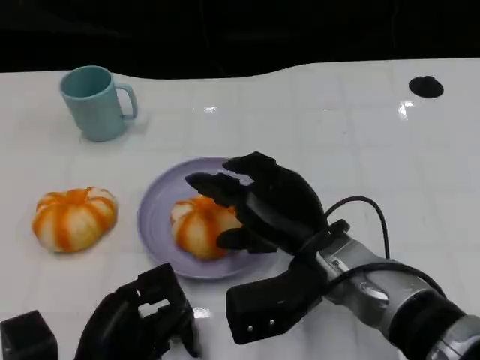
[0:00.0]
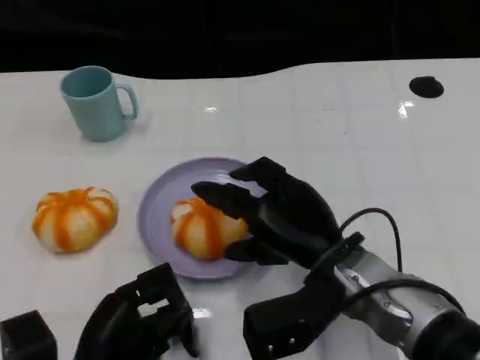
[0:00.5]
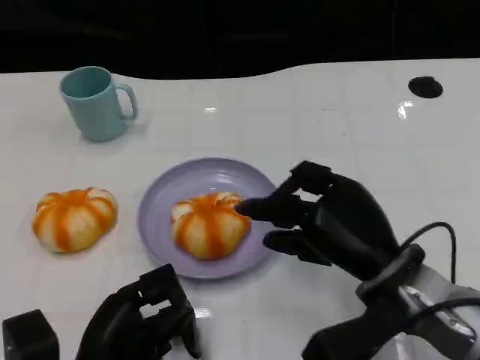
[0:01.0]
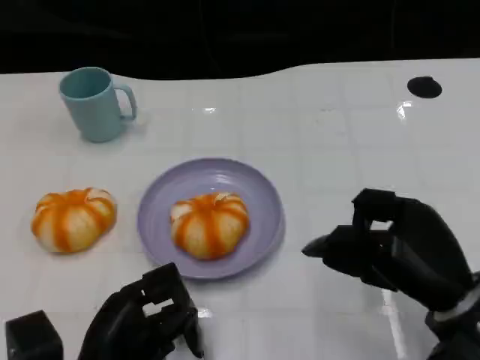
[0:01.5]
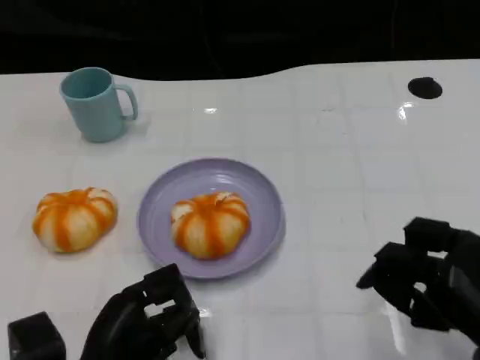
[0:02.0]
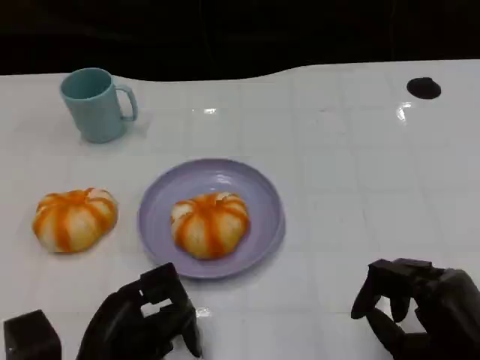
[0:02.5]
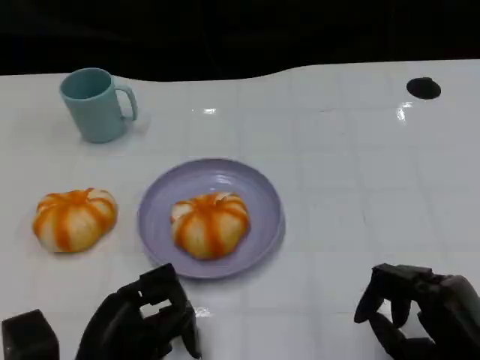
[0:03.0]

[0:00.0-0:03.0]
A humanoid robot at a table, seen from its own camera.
Task of the whole recording: Grasp the bread from the table and place it into the plate.
0:00.0 to 0:01.5: The right hand moves to the right, some 15 cm.
0:01.5 to 0:03.0: The right hand goes about 5 cm backward.

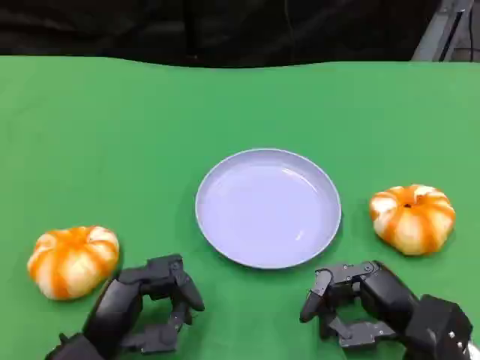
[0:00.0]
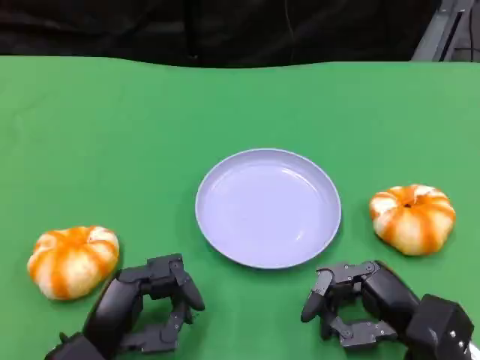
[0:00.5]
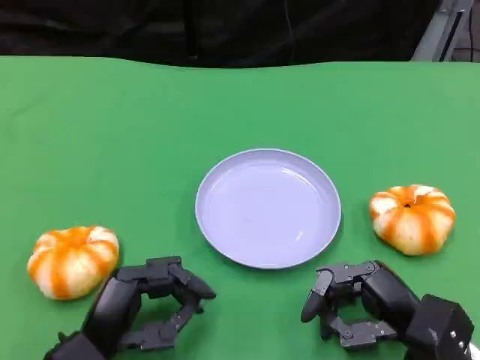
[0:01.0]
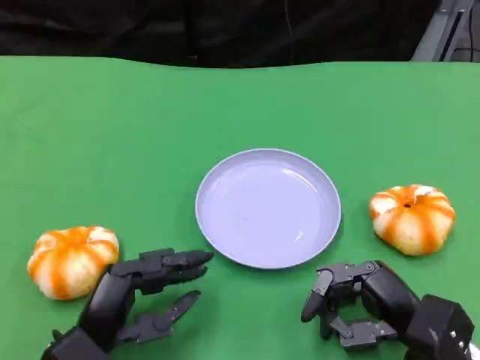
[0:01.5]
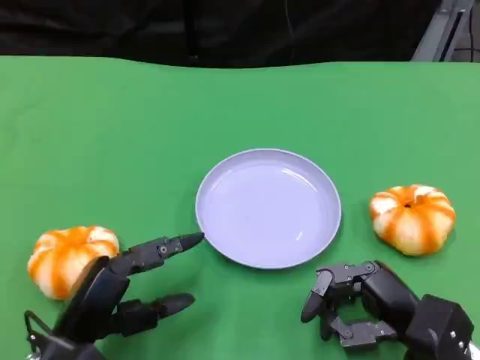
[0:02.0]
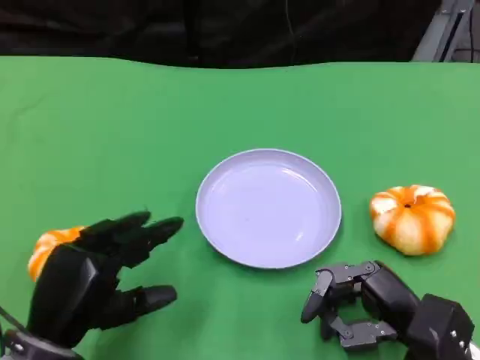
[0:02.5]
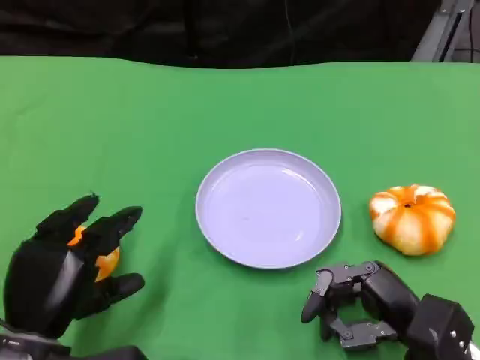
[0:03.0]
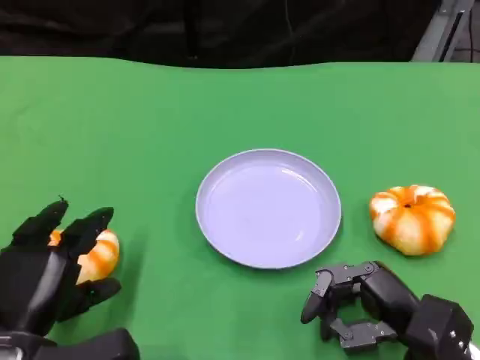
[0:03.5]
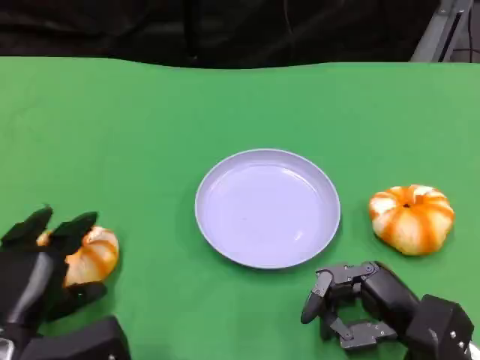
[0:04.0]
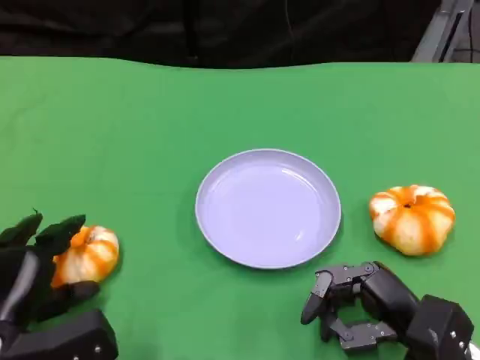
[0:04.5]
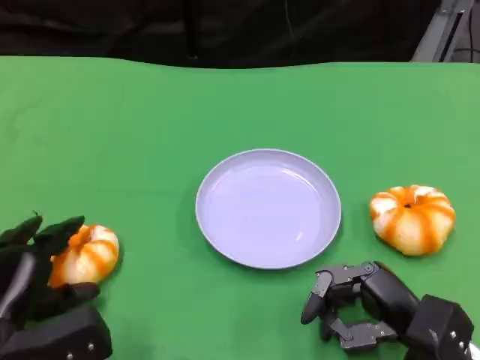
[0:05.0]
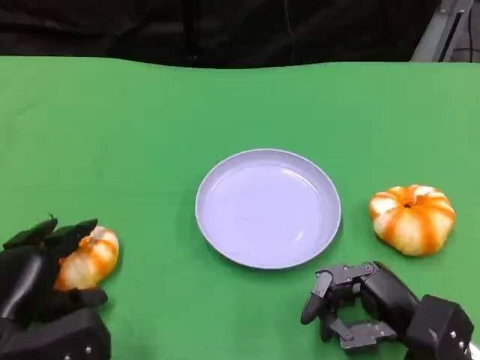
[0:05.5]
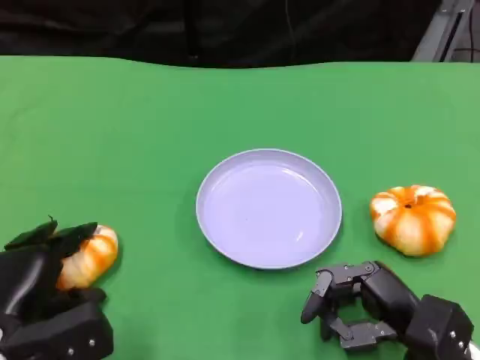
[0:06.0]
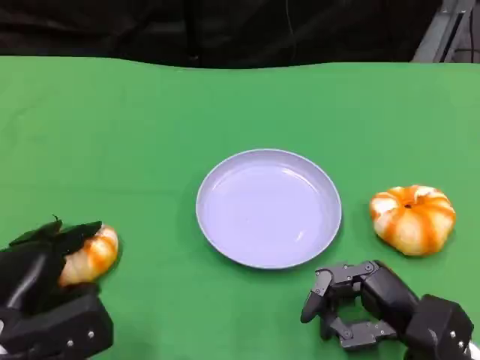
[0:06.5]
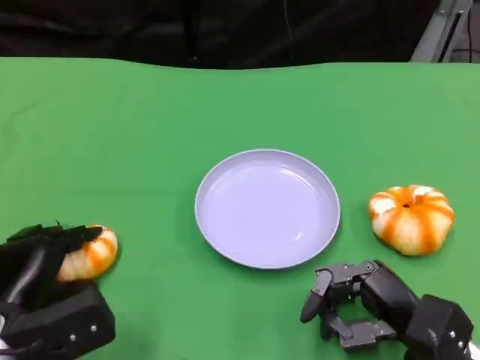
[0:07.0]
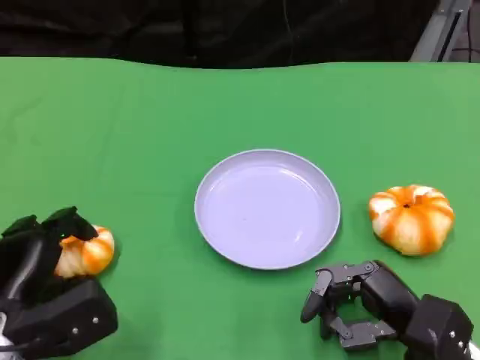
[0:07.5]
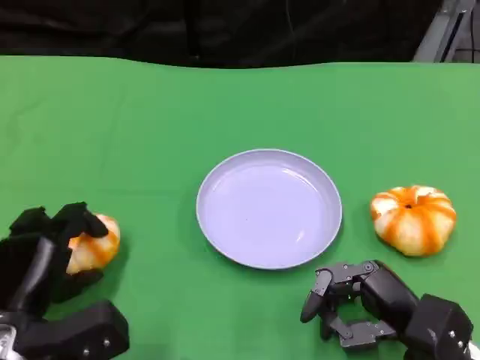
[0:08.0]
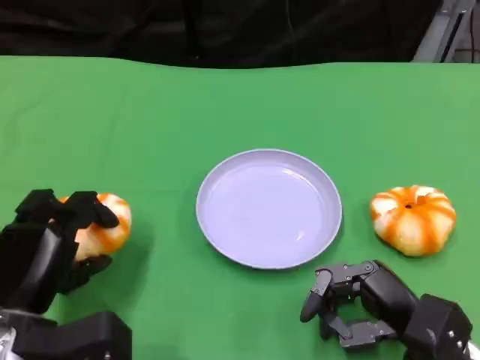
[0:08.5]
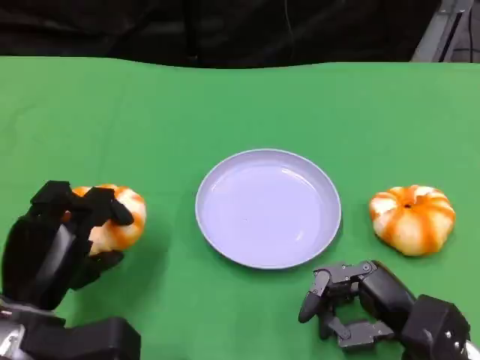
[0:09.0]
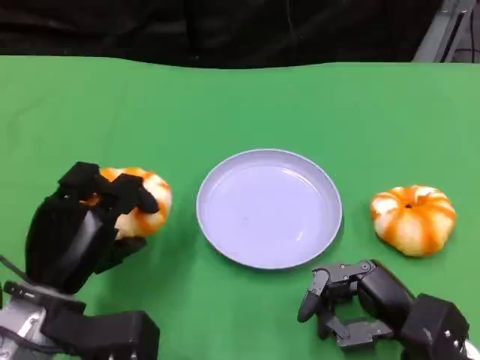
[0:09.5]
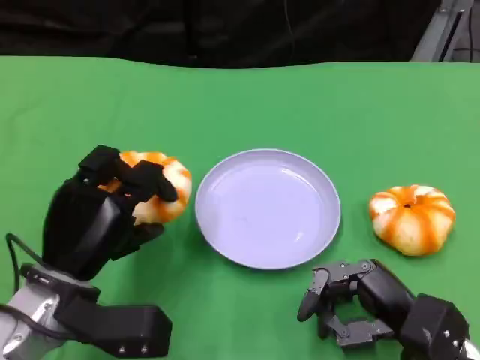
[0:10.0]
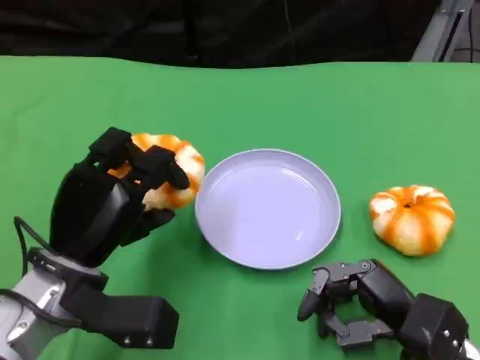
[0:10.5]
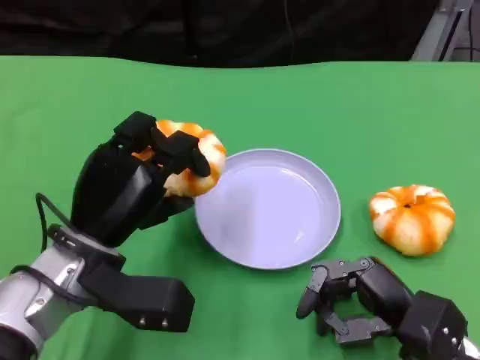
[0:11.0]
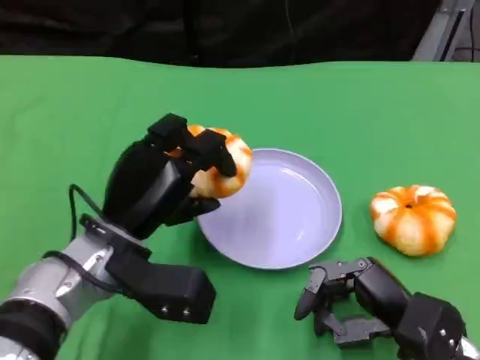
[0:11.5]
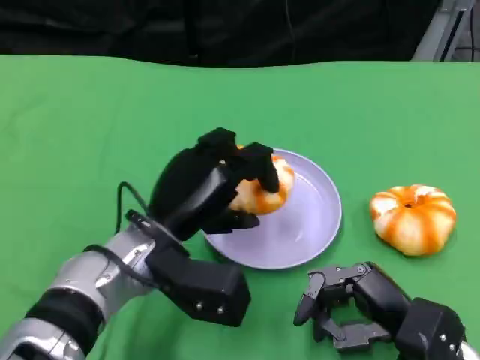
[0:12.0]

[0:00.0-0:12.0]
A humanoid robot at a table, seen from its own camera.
Task of the whole recording: Grasp the bread from the table and place it into the plate.
0:04.0 to 0:08.0: The hands move only a little.
0:08.0 to 0:10.0: The left hand shifts by approximately 5 cm.
0:10.0 to 0:12.0: The left hand shifts about 10 cm to the right.

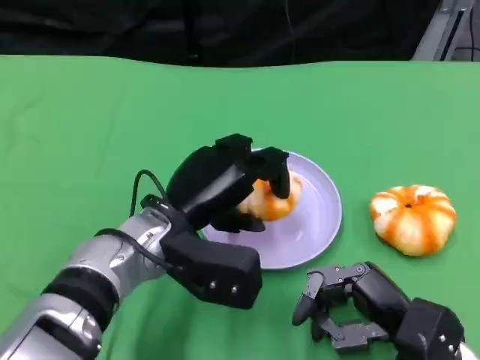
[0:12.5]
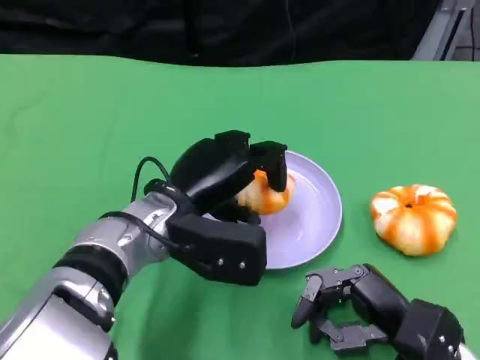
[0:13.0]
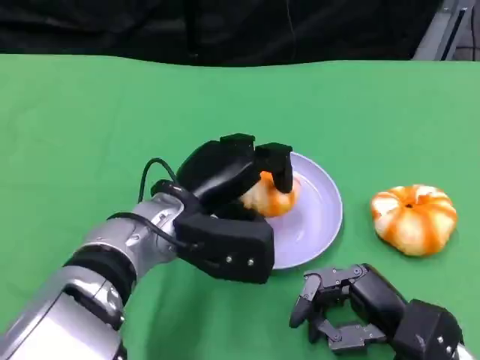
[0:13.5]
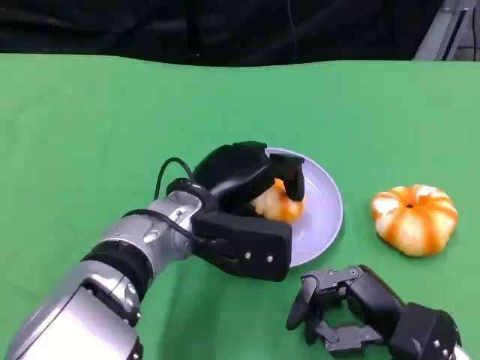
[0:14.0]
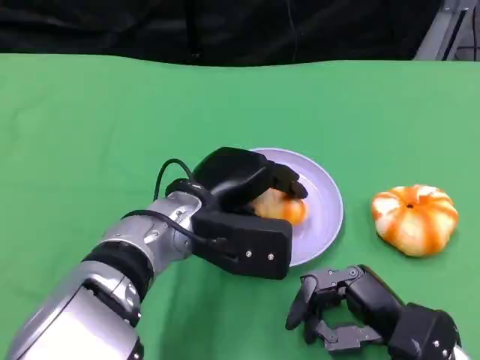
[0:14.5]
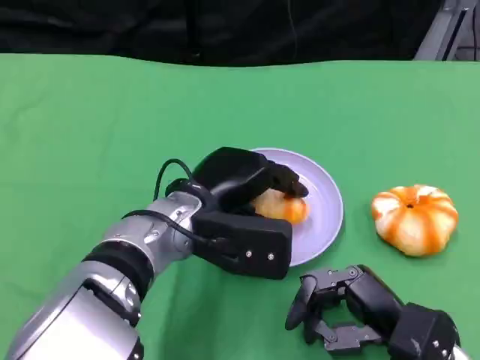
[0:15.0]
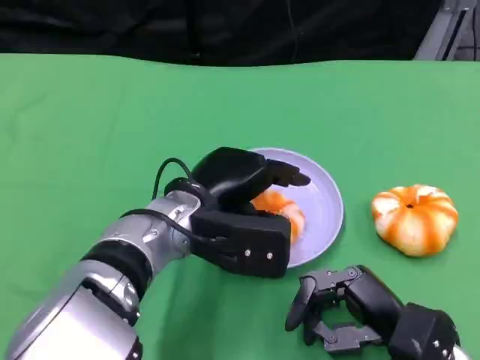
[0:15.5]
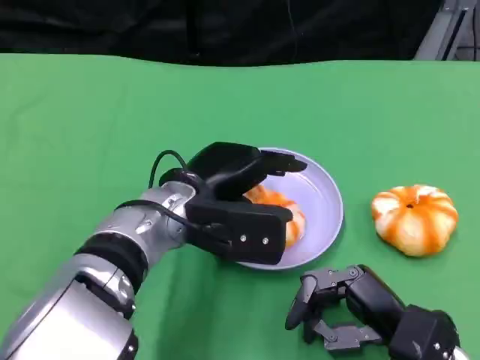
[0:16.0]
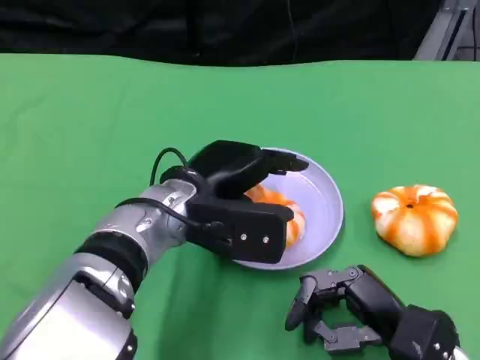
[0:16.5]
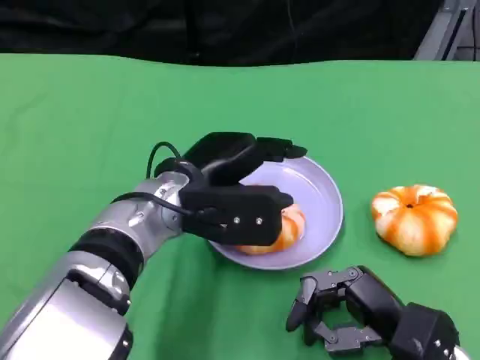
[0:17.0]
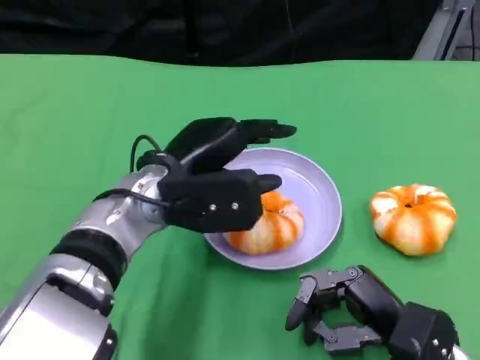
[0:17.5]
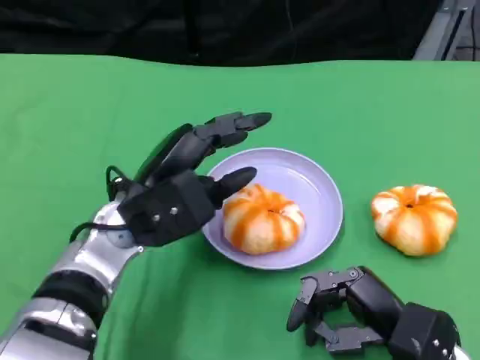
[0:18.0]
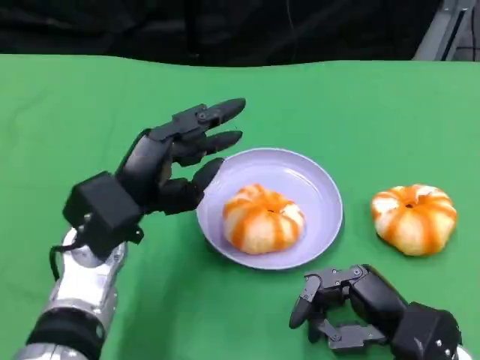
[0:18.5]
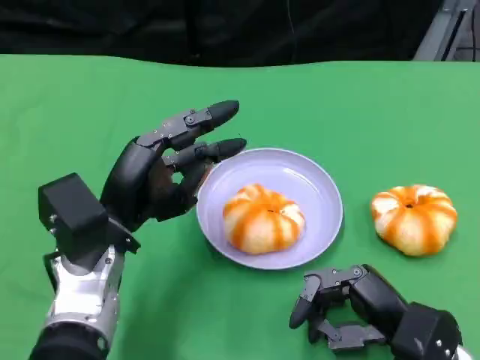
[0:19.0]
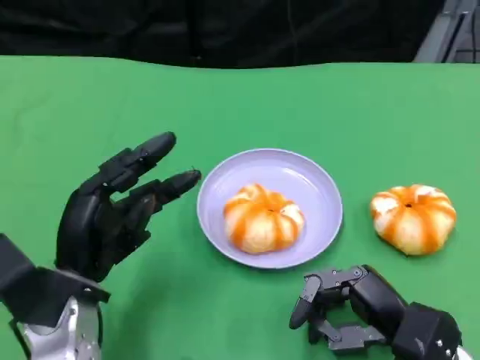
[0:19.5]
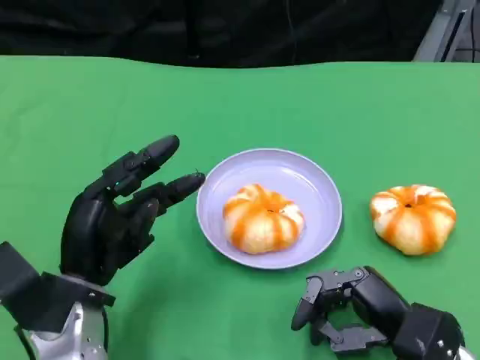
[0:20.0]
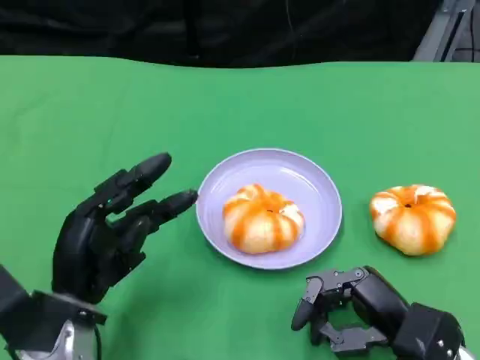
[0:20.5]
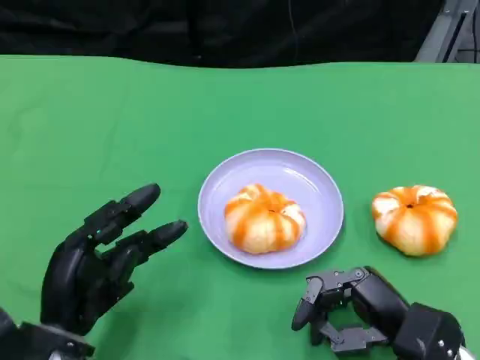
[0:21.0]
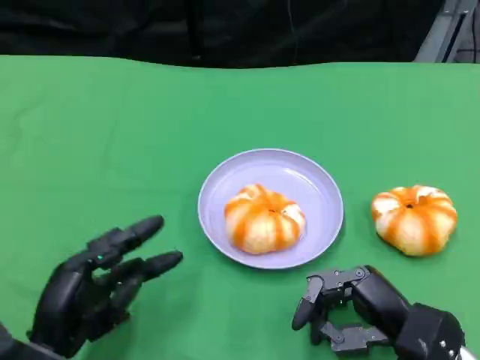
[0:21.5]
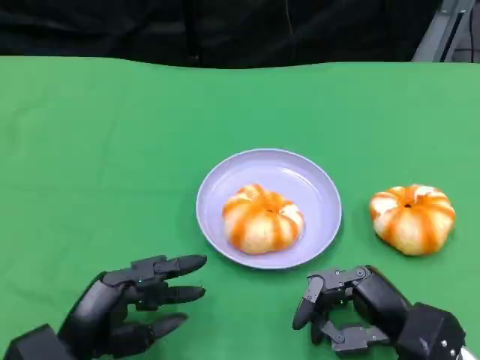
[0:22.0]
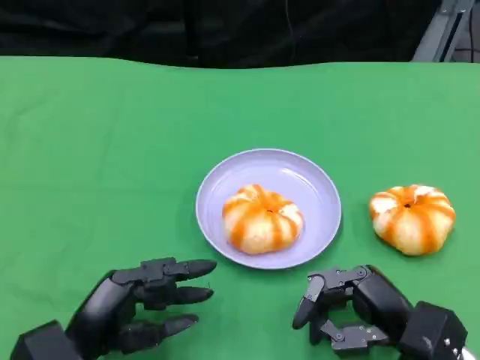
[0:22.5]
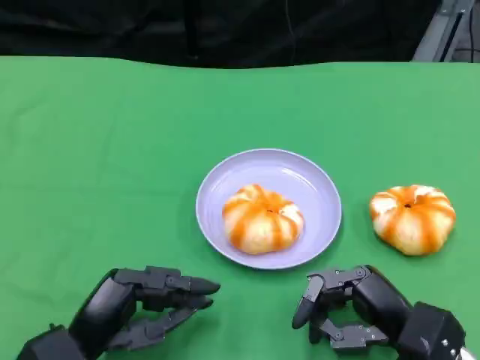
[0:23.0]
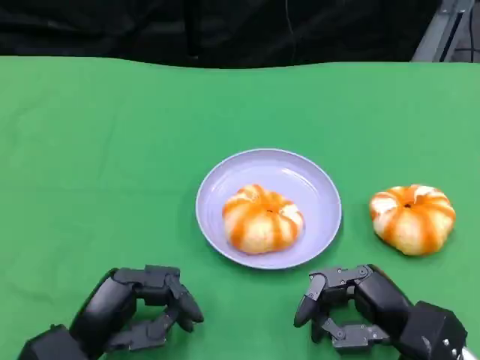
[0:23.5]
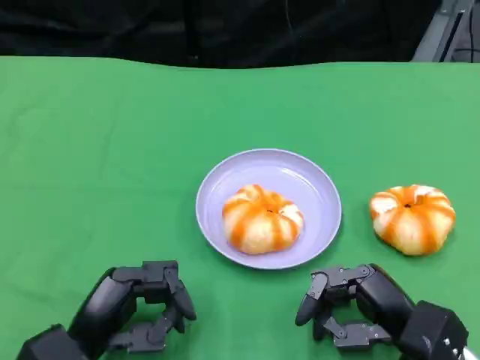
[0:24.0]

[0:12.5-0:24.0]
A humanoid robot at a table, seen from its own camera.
Task of the whole recording: Grasp the bread from the table and place it into the plate.
0:14.5 to 0:16.5: The hands move only a little.
0:16.5 to 0:18.5: The left hand is displaced to the left by approximately 10 cm.
0:18.5 to 0:20.0: The left hand moves roughly 5 cm.
0:20.0 to 0:22.0: The left hand heads backward, covering roughly 5 cm.
0:22.0 to 0:24.0: Both hands stay put.
